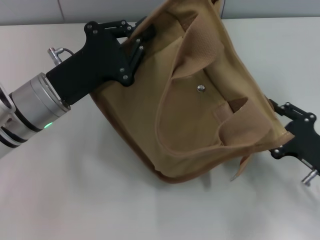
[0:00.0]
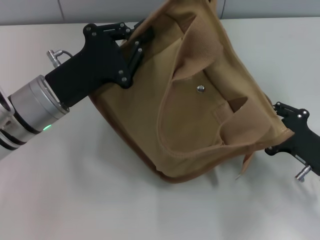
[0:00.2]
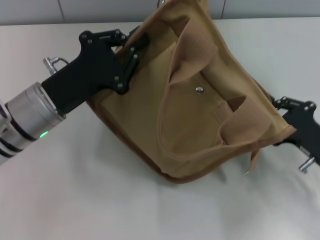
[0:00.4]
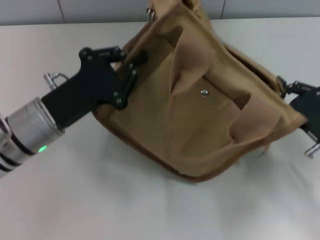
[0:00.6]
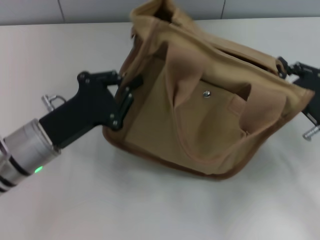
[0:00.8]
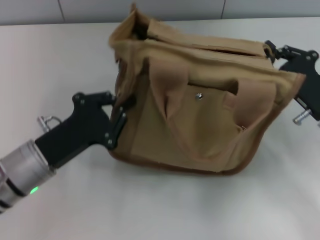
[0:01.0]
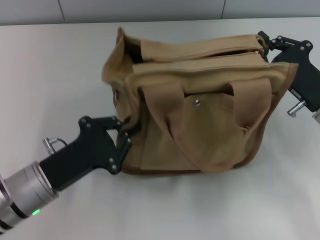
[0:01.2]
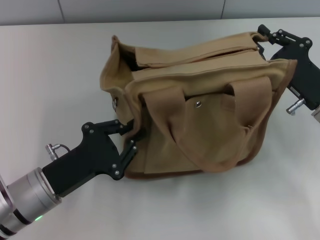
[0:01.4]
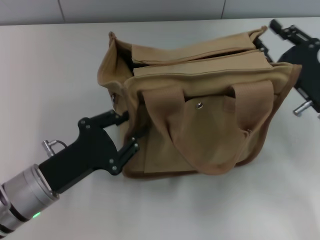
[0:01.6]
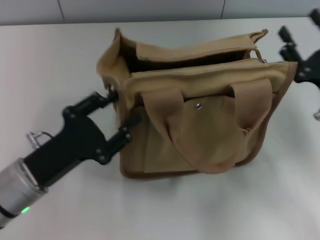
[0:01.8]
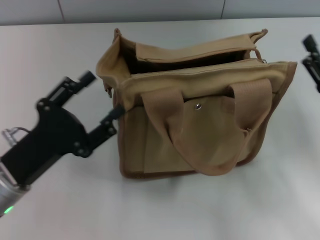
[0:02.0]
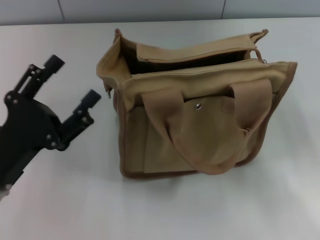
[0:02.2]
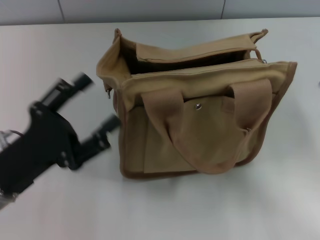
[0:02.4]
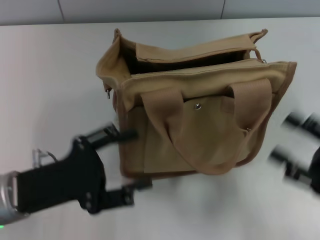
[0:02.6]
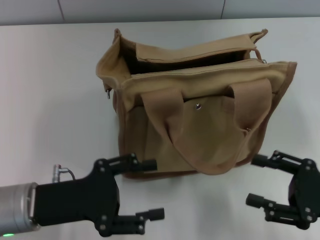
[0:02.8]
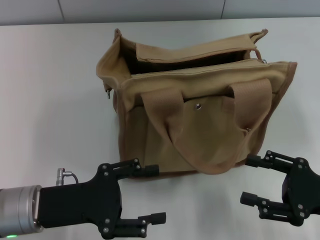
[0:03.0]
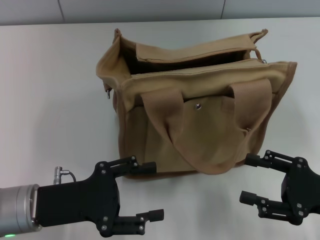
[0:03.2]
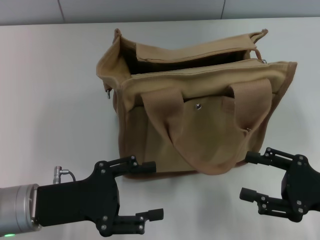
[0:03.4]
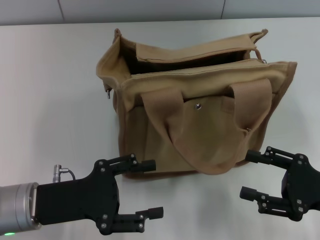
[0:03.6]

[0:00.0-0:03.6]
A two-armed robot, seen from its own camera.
Step, 0:00.0 to 0:01.6: Grab the bag with your left hand.
0:00.0 to 0:01.8: The left gripper is displaced backward and downward by roughly 10 cm, and opens, while the right gripper heads upward, covering roughly 5 cm, and closes, then reopens.
0:01.8 to 0:03.6: The right gripper heads backward, covering approximately 5 cm. The left gripper opens its fingers.
